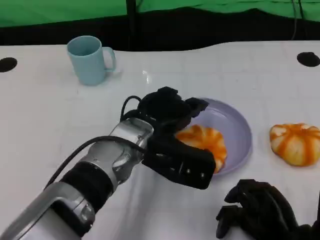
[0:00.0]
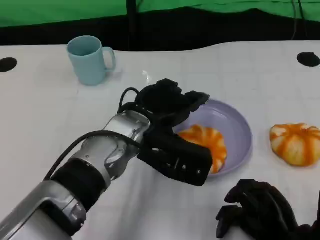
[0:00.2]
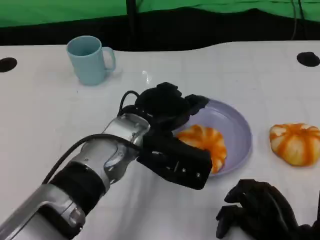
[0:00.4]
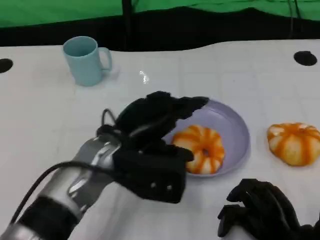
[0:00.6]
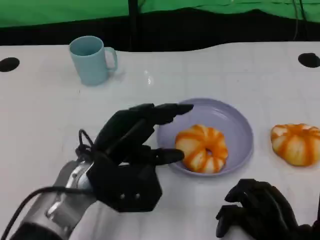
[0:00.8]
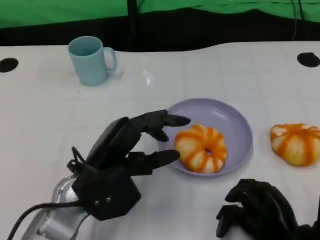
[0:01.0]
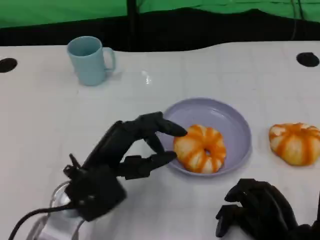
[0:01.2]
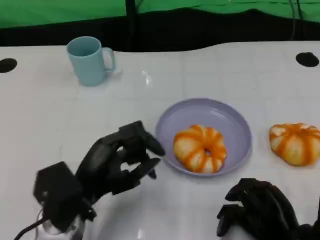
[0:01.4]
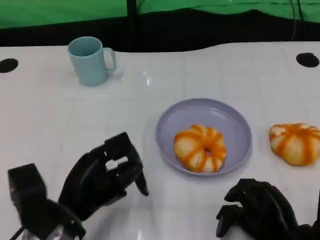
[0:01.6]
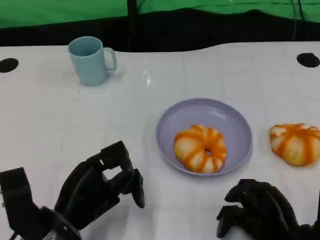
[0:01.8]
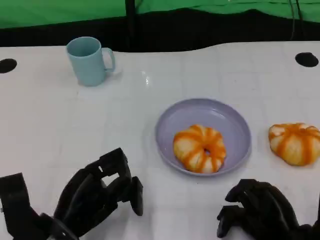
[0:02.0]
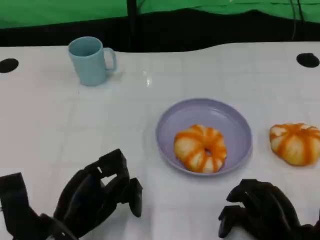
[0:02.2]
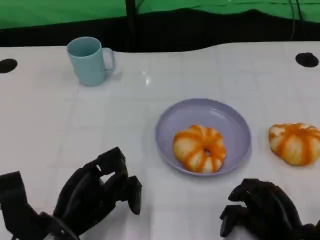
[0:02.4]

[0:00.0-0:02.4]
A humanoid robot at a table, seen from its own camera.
Task of the whole recording: Grasp the bread from the table and place it into the plate.
0:00.0 to 0:01.2: The left hand moves to the left and backward, roughly 10 cm.
0:01.2 to 0:02.4: The left hand goes about 5 cm downward.

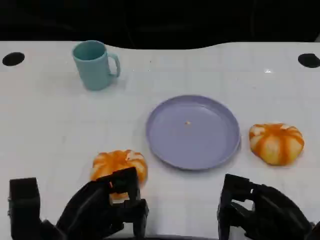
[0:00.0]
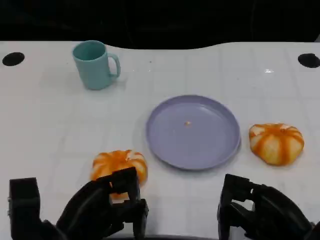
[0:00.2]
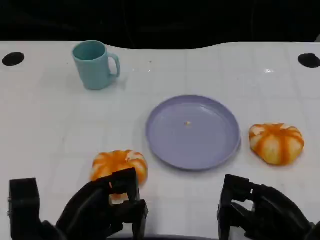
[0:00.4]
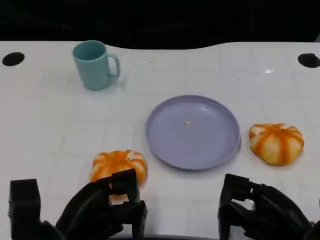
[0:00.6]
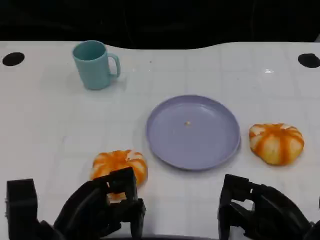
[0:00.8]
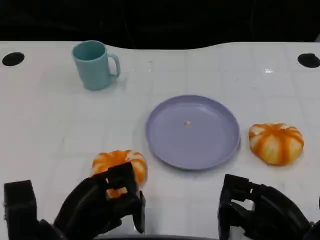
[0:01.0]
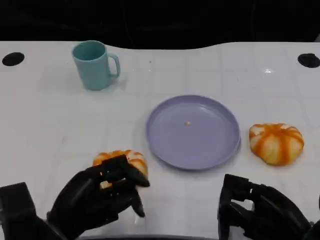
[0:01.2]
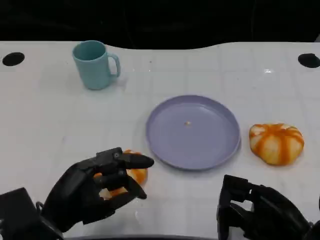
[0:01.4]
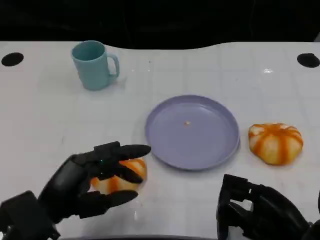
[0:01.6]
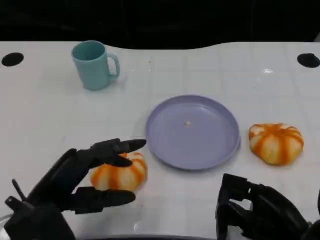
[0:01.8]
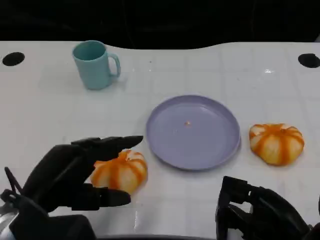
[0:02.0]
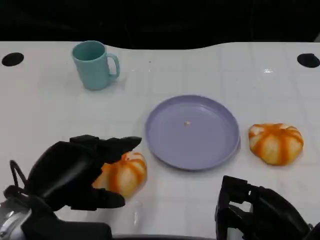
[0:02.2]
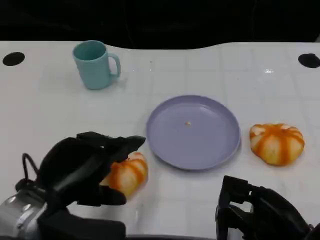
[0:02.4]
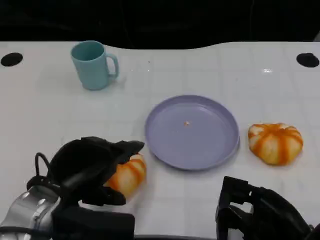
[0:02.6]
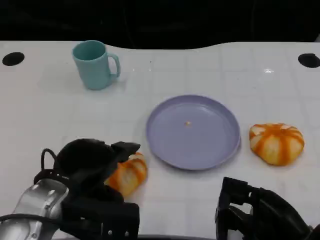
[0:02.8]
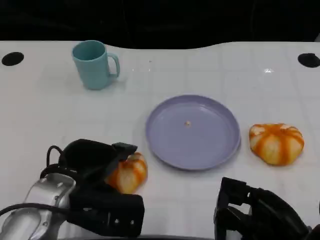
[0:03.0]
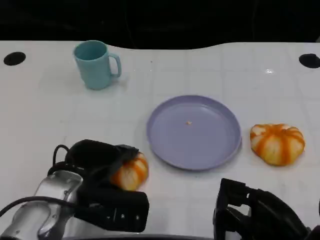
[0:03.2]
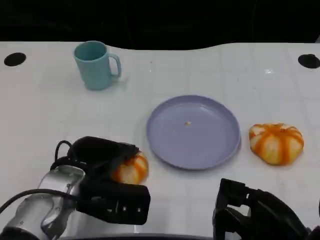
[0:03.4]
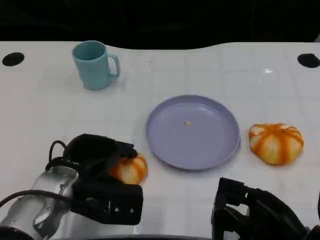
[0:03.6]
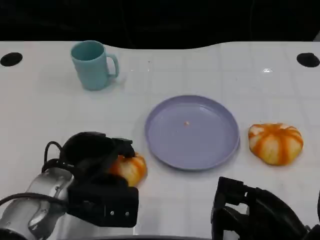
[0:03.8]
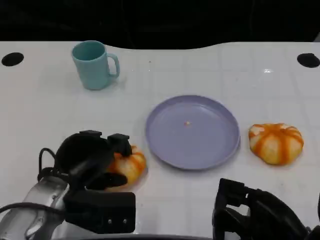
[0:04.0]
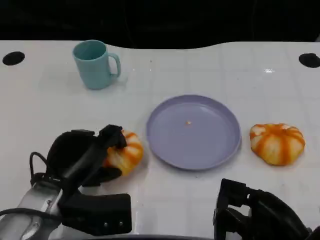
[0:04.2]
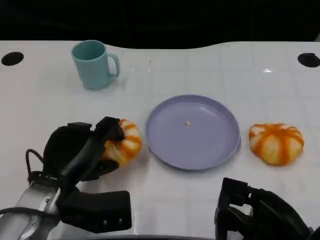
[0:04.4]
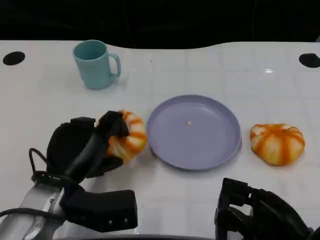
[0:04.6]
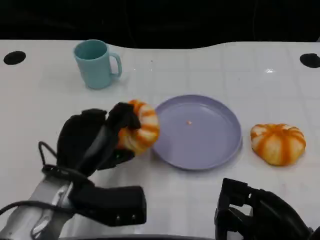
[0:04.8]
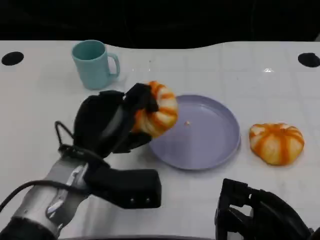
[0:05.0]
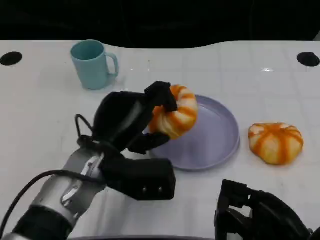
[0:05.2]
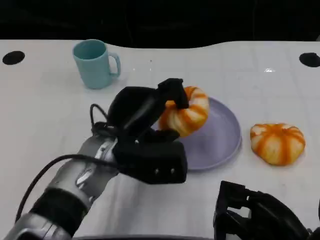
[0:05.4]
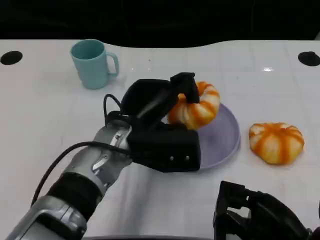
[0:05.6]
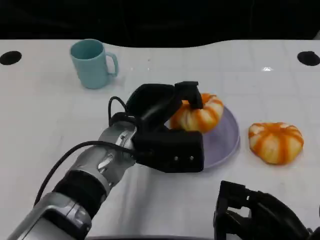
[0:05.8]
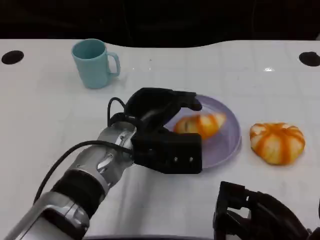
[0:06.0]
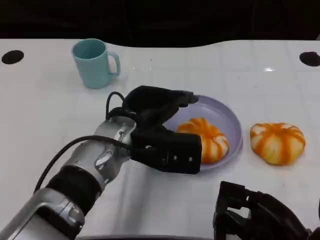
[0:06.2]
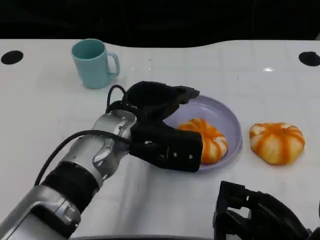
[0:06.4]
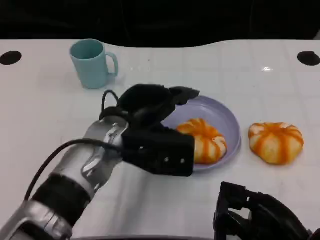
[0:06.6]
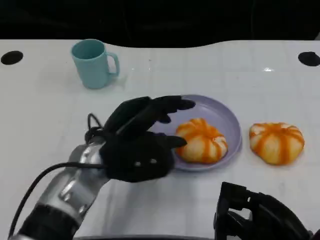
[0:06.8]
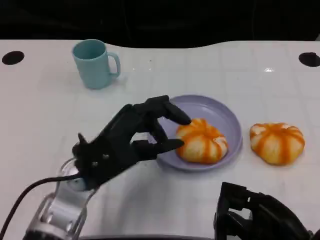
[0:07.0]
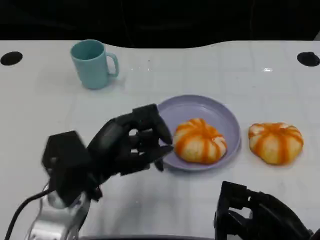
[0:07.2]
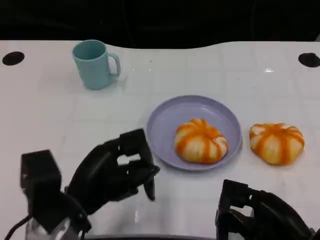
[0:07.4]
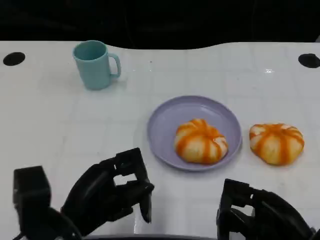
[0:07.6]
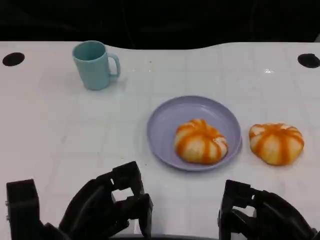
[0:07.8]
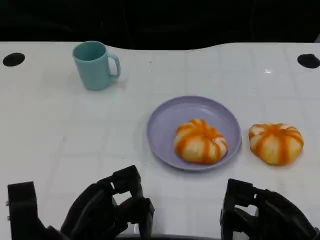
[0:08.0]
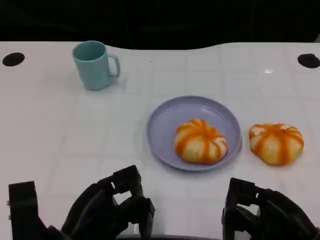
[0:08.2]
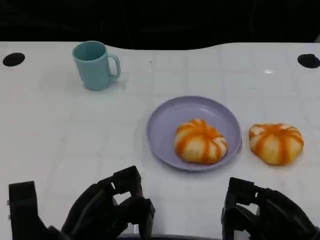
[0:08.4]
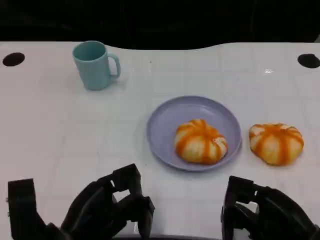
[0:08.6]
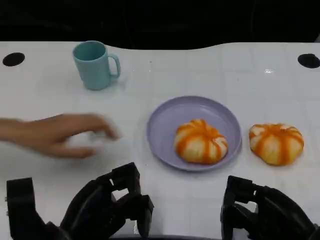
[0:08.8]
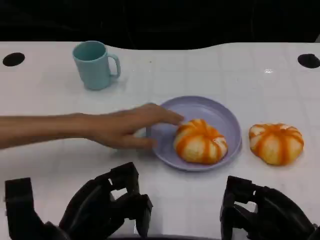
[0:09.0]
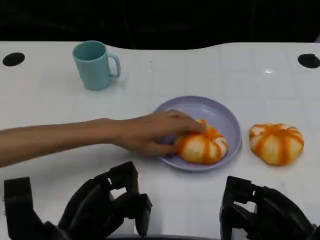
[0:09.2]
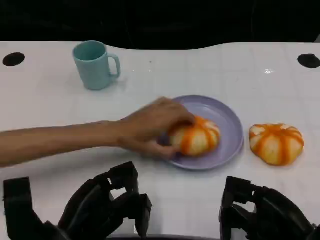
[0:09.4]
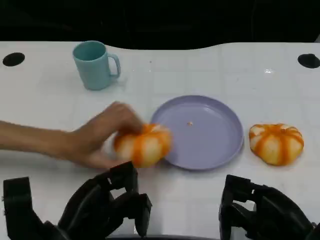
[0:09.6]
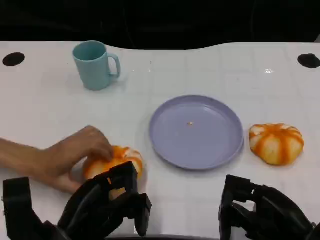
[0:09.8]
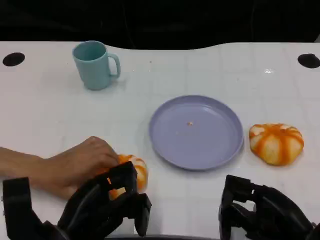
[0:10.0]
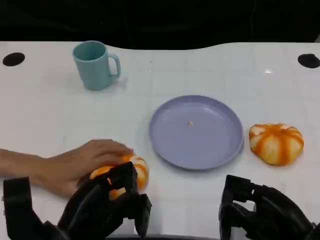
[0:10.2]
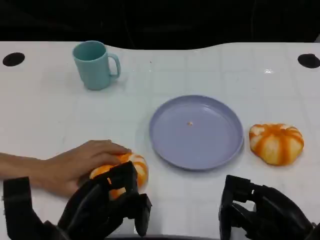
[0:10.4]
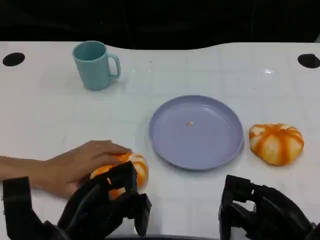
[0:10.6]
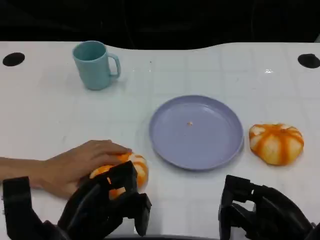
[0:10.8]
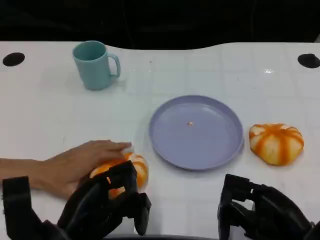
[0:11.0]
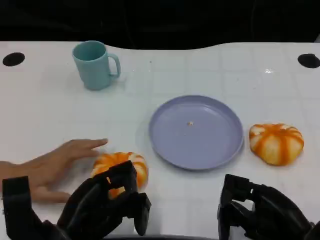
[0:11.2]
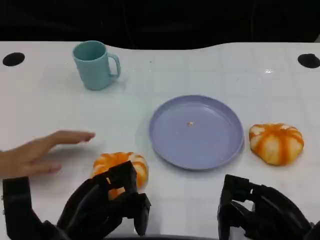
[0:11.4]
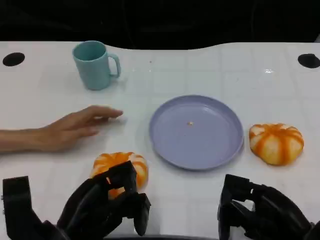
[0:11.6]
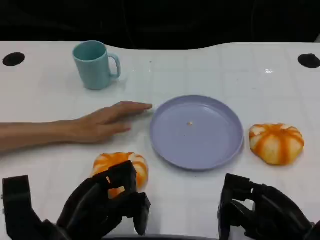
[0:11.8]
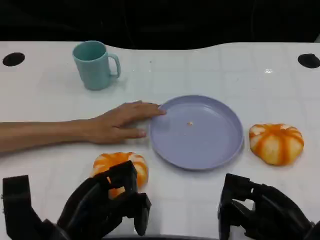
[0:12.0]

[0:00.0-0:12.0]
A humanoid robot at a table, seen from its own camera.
Task of the whole recording: Grasp the bread from the table and place it into the plate.
0:01.6 to 0:03.0: The left hand shifts about 5 cm forward.
0:04.4 to 0:06.0: The left hand moves to the right and forward, roughly 10 cm.
0:06.0 to 0:07.6: The left hand is displaced backward and to the left by roughly 15 cm.
0:09.0 to 0:12.0: The two hands keep their place.

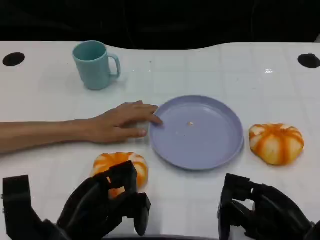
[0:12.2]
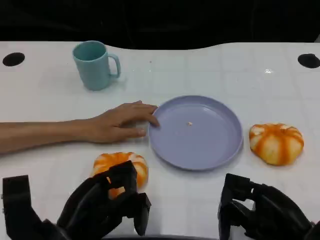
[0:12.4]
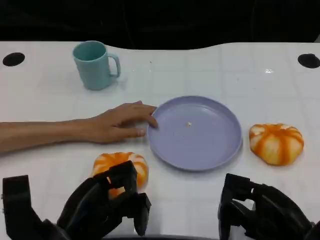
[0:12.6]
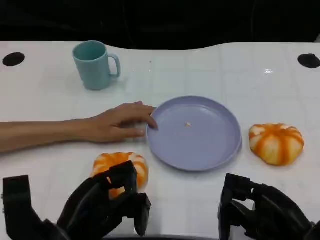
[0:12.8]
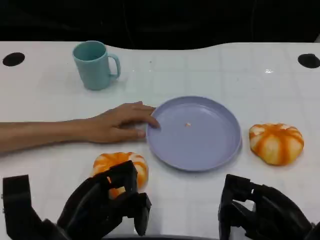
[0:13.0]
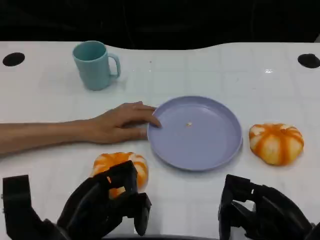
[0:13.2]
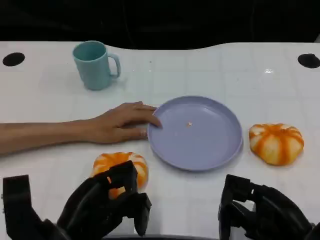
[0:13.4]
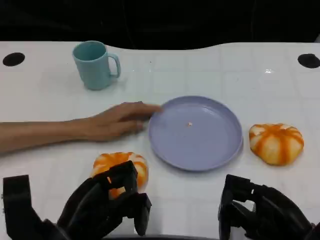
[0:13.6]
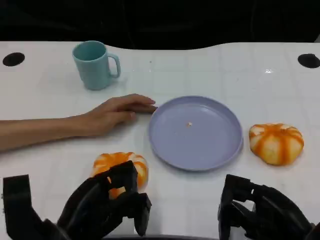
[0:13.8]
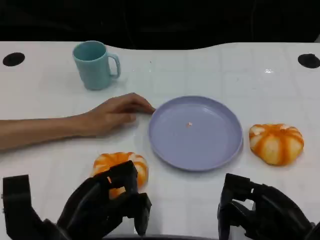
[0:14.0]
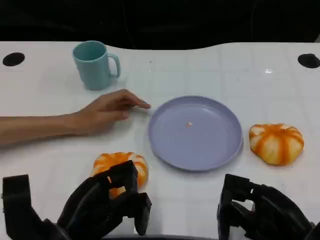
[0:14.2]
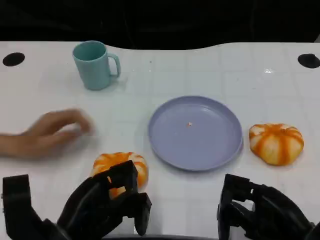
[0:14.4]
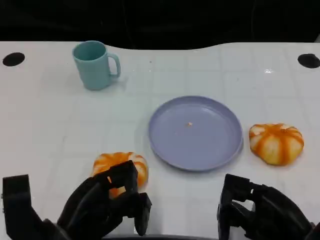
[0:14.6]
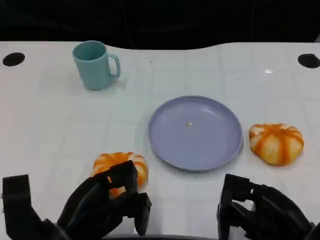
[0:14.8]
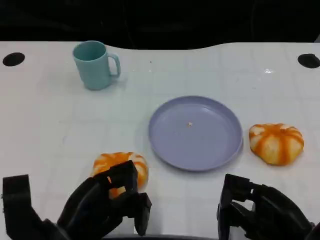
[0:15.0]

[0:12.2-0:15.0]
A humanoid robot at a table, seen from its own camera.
Task of the whole recording: Grasp the bread from the table and place it into the plate.
0:12.2 to 0:15.0: The two hands keep their place.

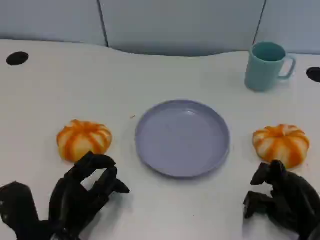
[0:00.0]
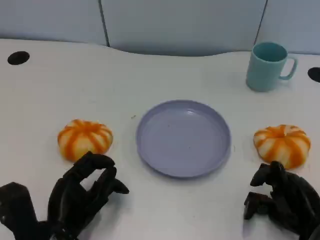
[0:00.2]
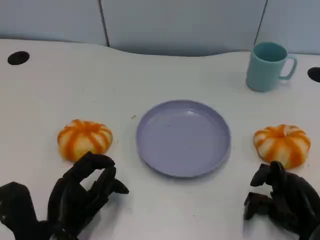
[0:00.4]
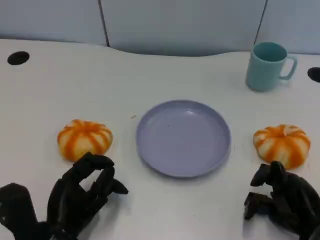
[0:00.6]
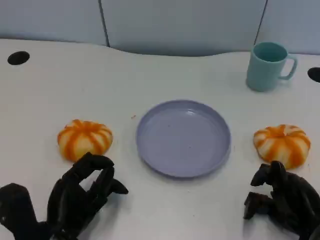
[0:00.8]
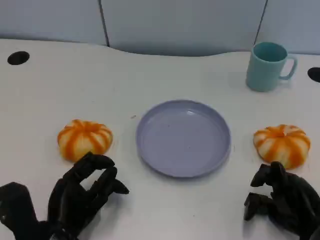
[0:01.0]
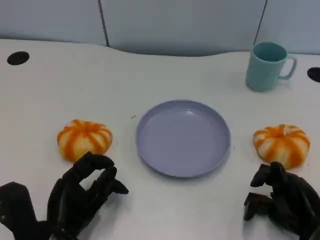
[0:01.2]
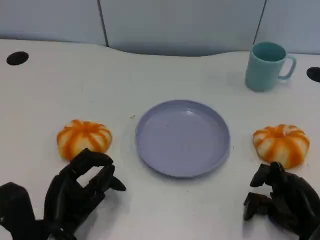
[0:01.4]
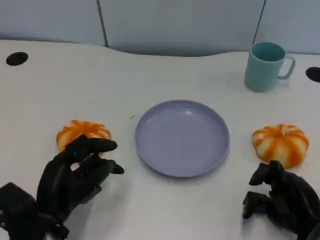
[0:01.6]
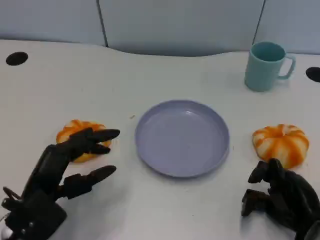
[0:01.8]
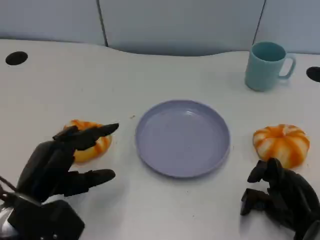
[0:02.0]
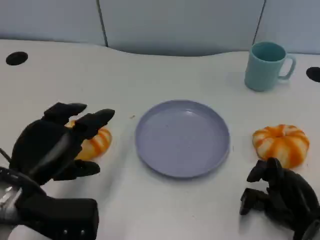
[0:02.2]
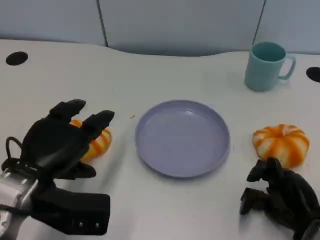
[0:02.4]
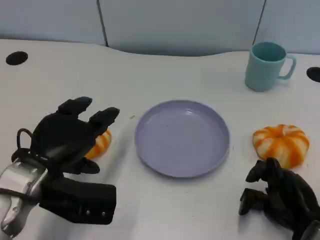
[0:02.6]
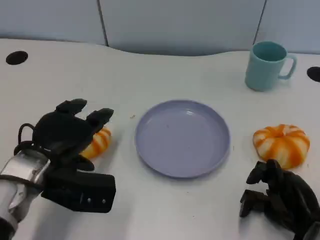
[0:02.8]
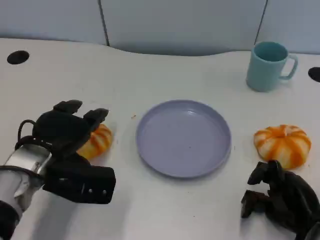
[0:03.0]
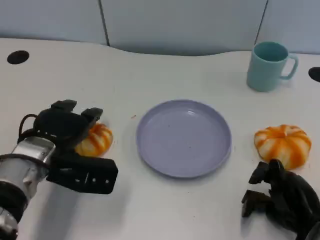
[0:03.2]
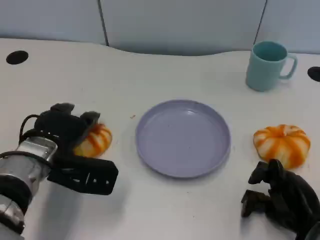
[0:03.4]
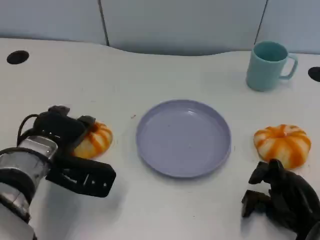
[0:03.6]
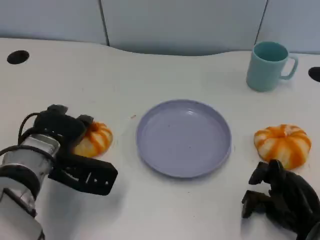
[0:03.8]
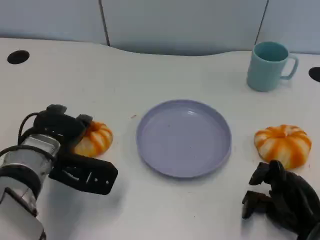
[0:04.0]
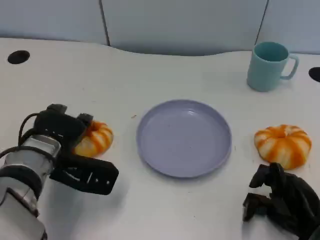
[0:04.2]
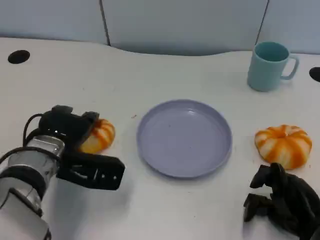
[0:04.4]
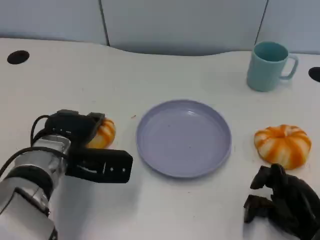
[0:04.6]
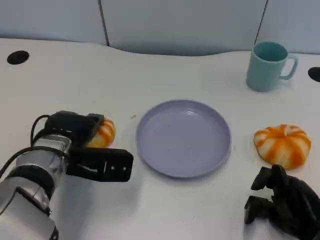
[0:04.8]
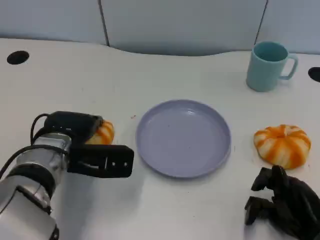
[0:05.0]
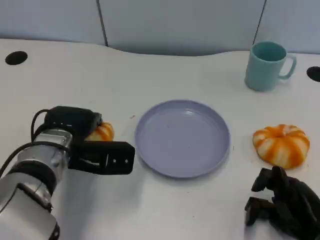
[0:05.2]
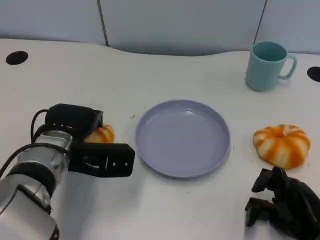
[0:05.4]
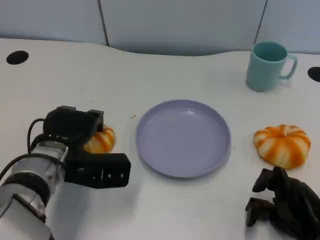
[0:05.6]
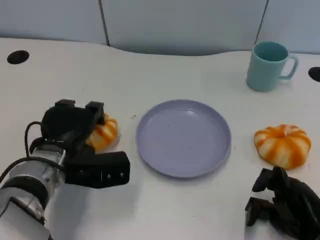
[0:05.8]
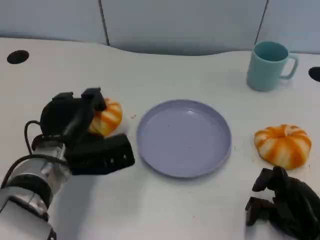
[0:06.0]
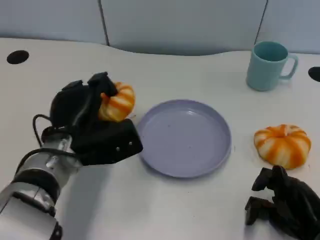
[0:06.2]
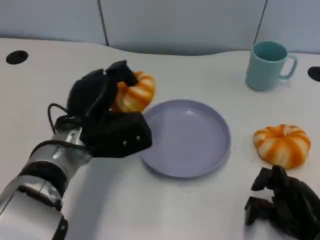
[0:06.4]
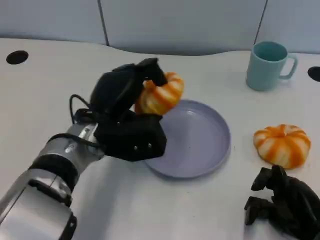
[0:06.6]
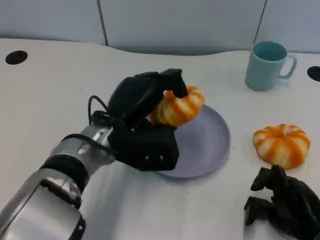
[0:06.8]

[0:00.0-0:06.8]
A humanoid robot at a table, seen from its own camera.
Task of the whole recording: Grasp the bread from the table and place it into the plate.
0:00.0 to 0:01.4: There are only small adjustments of the hands.
0:01.4 to 0:02.8: The left hand is displaced forward and upward by about 10 cm.
0:04.0 to 0:05.4: There are only small adjustments of the hands.
0:05.4 to 0:06.8: The left hand goes roughly 10 cm to the right.
